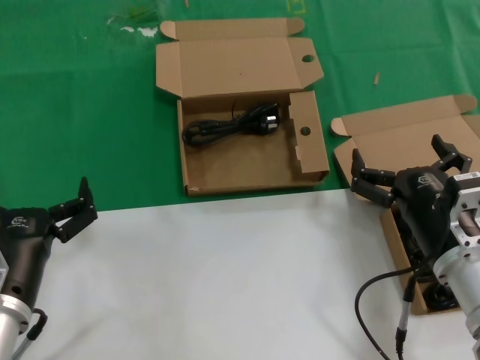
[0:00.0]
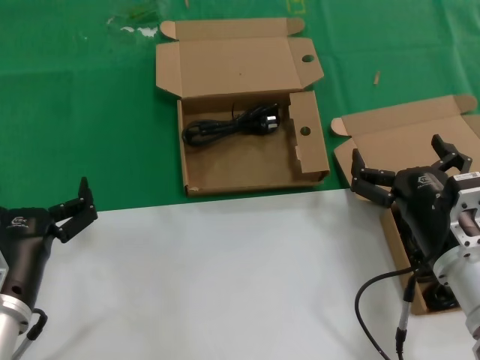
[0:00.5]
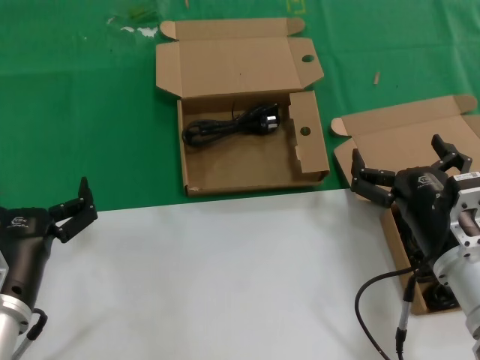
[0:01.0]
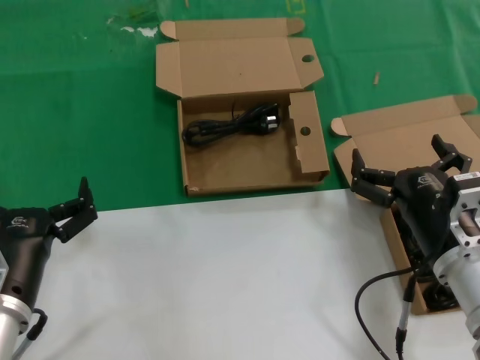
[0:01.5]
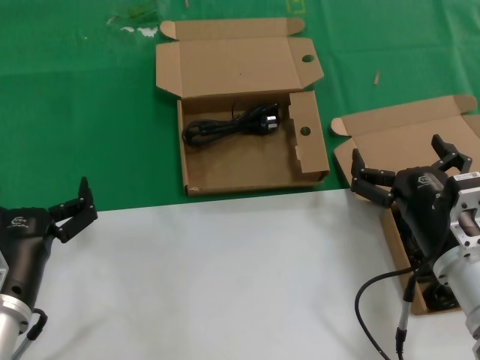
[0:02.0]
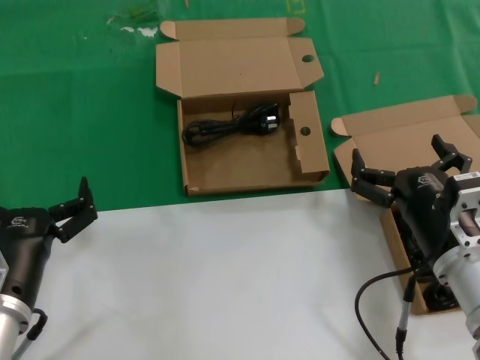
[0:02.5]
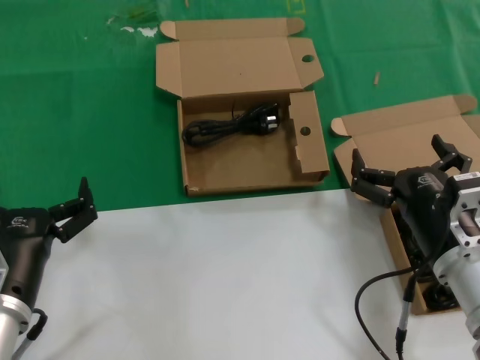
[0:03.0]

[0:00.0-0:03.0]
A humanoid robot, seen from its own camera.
Task of the whole recording: take the parts from the box containing them and put them into an empty box.
0:00.0 to 0:03.0: The two hands keep their place.
